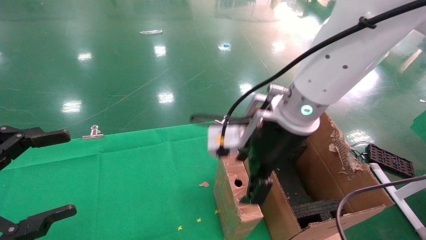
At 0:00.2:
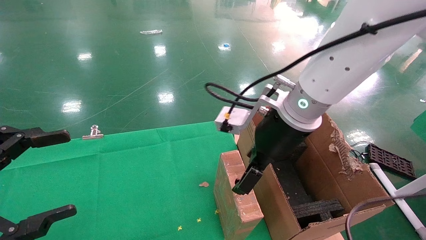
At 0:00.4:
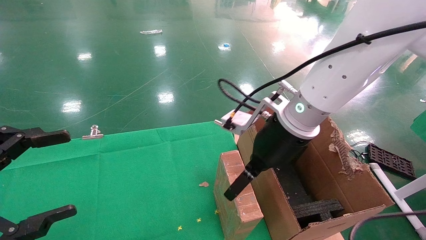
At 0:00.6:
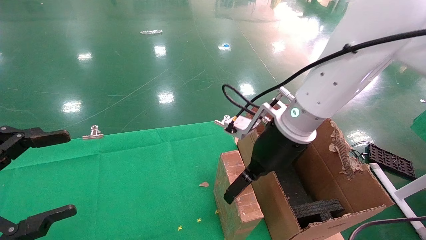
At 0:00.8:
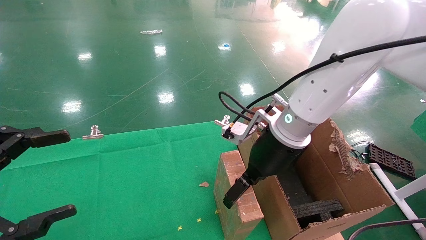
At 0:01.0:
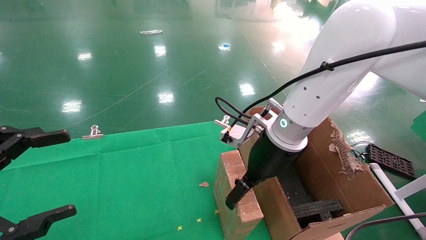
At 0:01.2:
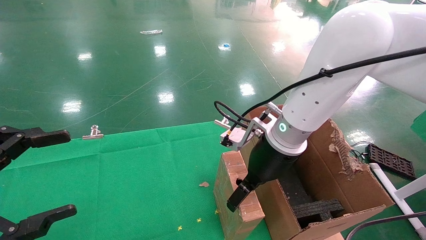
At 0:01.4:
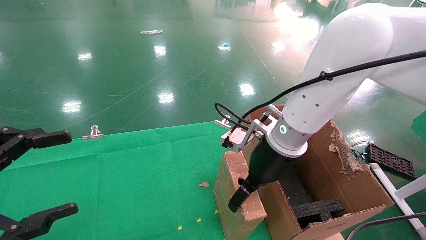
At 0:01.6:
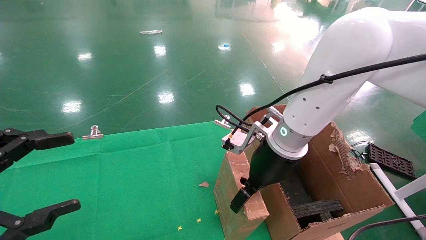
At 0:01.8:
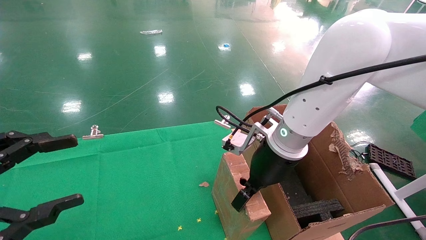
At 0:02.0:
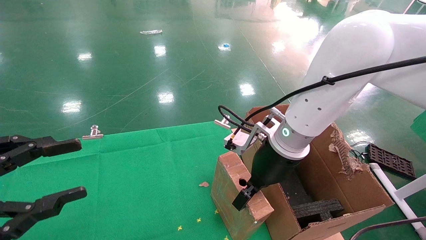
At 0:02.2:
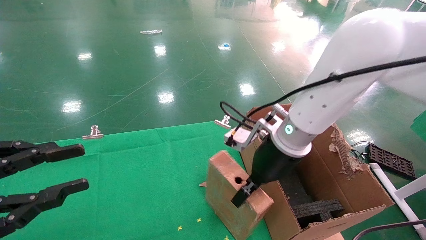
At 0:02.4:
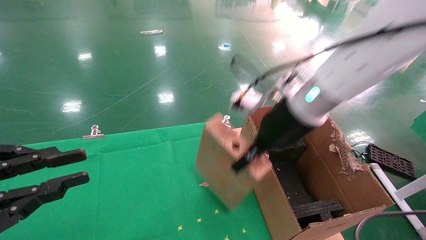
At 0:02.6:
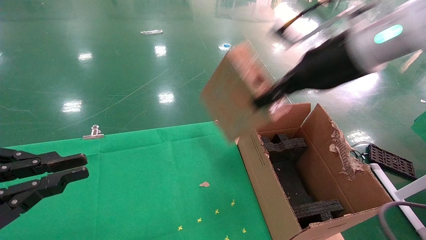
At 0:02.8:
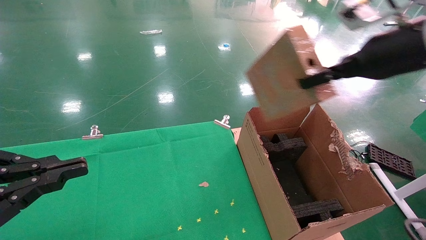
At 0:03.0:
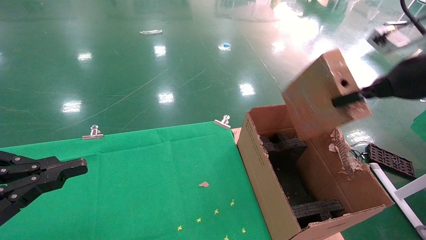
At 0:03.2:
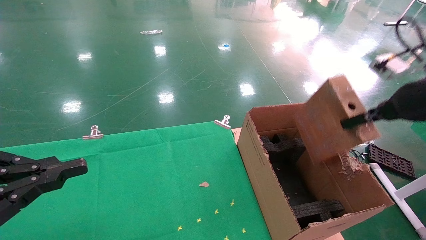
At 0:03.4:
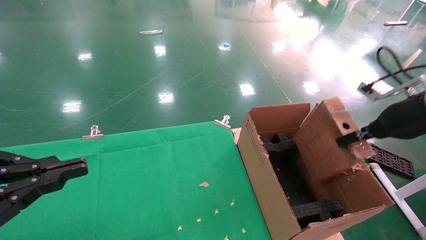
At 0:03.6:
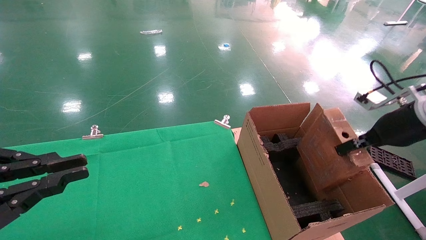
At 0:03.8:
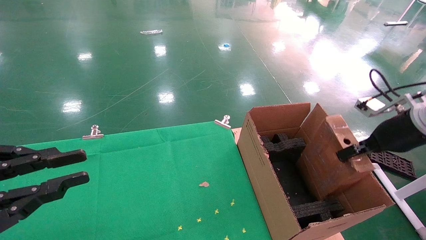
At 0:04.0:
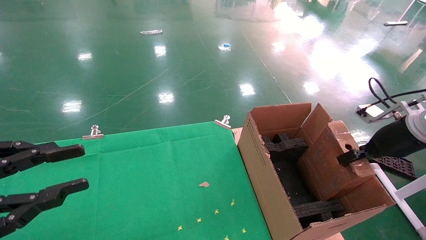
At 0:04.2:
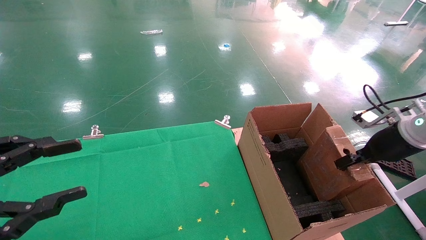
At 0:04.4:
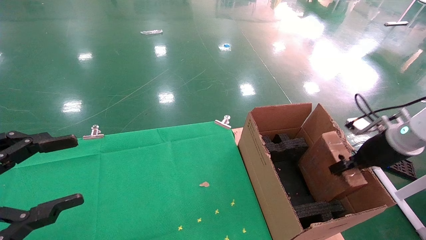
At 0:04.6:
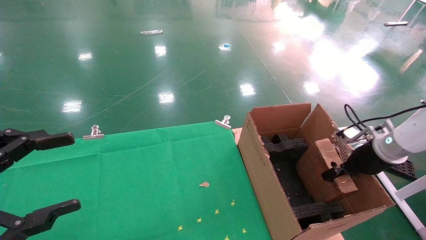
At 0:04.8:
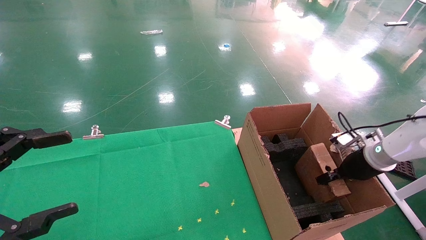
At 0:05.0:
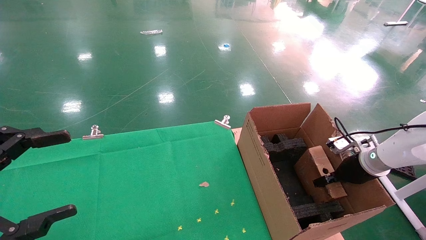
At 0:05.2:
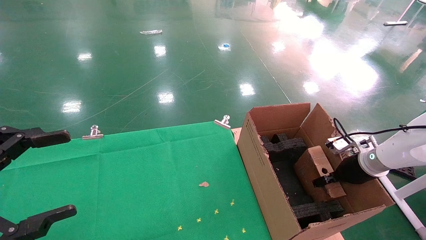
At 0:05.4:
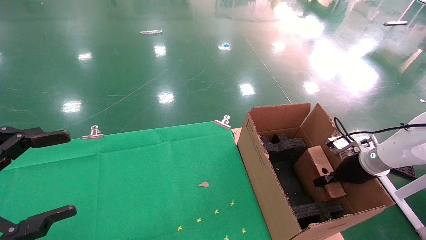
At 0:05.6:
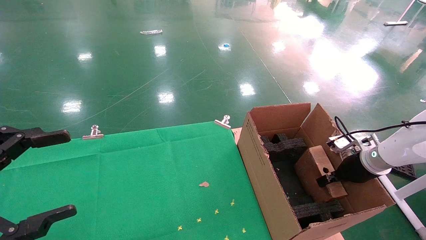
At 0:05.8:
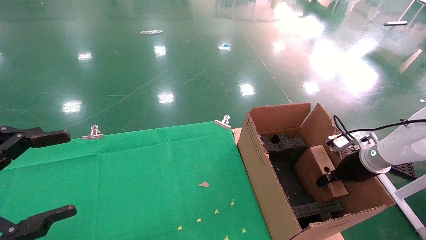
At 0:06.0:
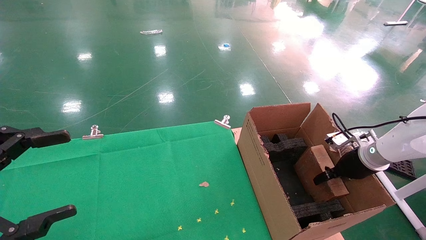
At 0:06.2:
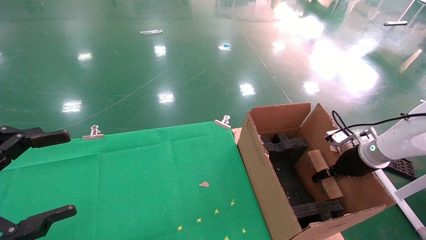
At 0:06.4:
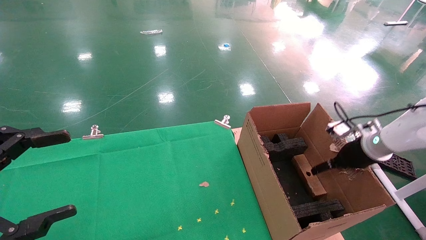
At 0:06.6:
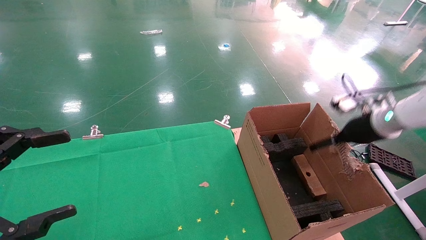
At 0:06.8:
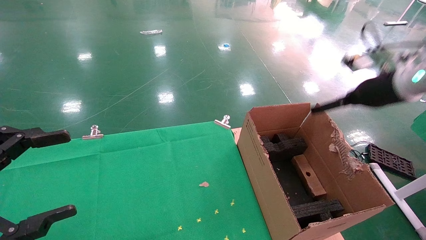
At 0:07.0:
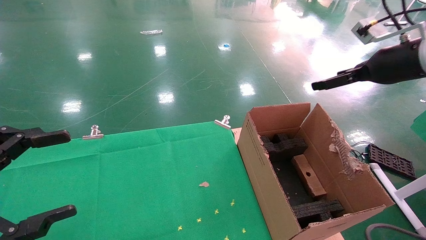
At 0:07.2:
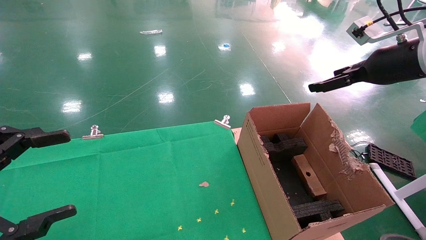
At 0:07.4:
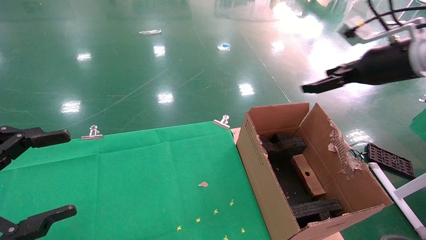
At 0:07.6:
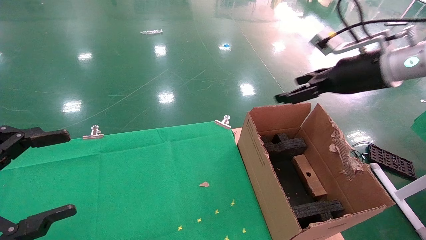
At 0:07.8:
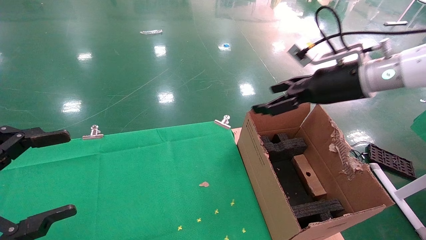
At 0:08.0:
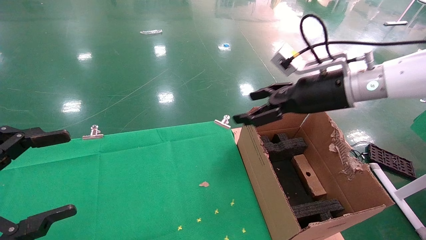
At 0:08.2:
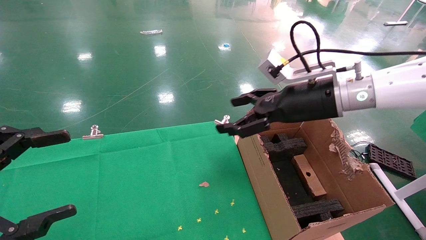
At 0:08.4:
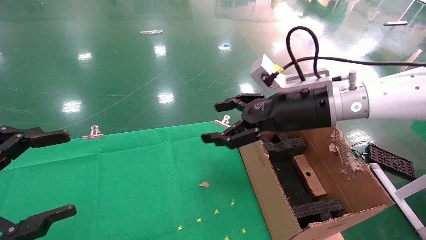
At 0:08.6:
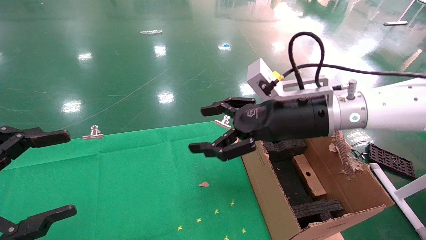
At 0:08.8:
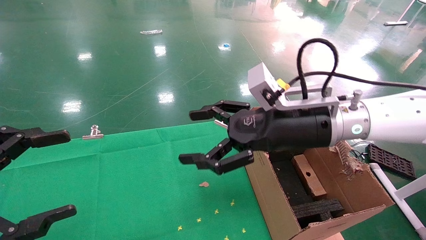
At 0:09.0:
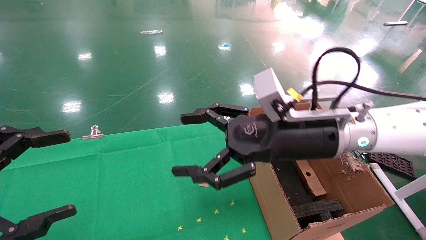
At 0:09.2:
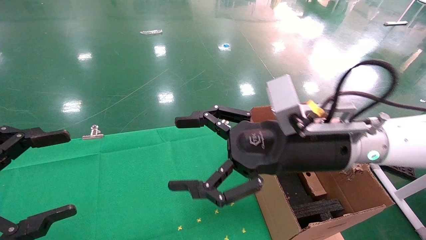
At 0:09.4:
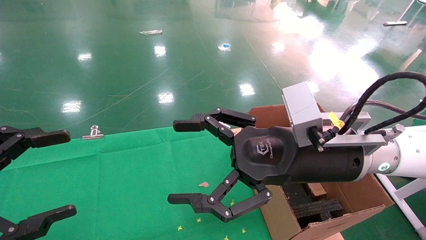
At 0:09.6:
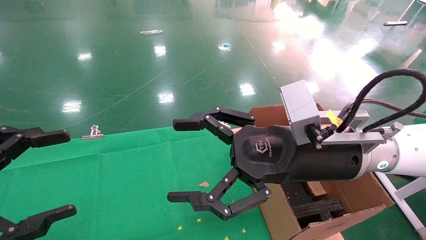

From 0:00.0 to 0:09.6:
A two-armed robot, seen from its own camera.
Task of the whole recording: using a robotic arm to pick up a cardboard box and palace it the carton.
Step, from 0:00.0 to 0:02.0: Pick up the mouse and the power cord paper box.
Step, from 0:02.2 to 0:06.4: Place the mouse and the power cord paper box into the container.
From 0:00.0 to 0:01.6: The right gripper heads downward, covering about 5 cm.
From 0:01.6 to 0:03.2: The right gripper travels to the right by some 25 cm, and closes up. The left gripper closes.
From 0:03.2 to 0:04.8: The left gripper opens its fingers; the right gripper travels downward and forward by about 20 cm.
From 0:04.8 to 0:06.4: The right gripper opens its fingers.
From 0:06.4 to 0:08.0: The right gripper travels to the left and upward by roughly 20 cm.
From 0:08.0 to 0:09.6: The right gripper is displaced backward, to the left and downward by roughly 15 cm.

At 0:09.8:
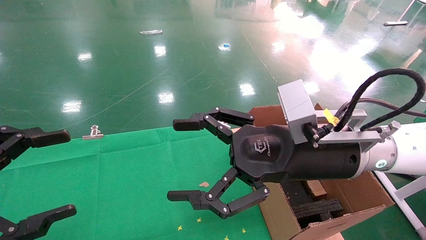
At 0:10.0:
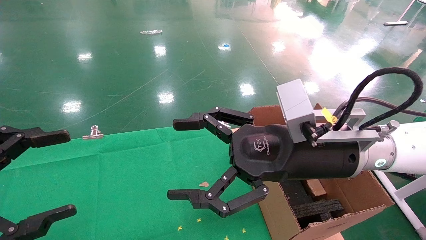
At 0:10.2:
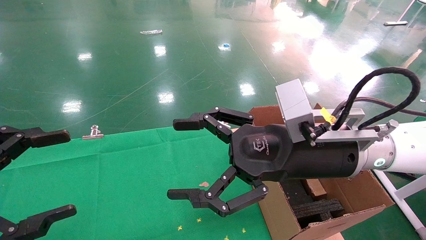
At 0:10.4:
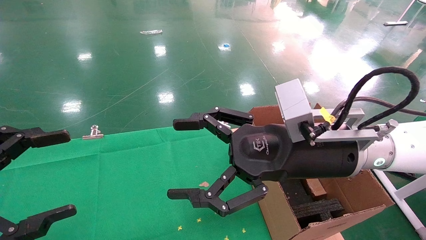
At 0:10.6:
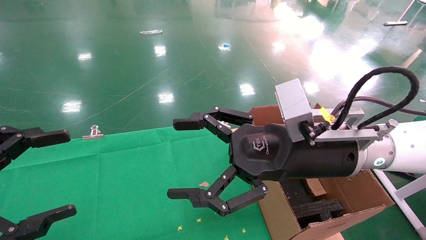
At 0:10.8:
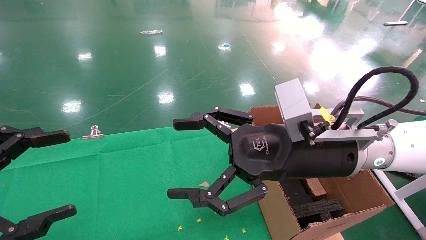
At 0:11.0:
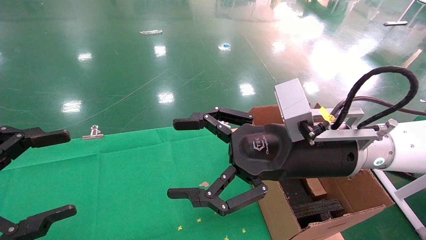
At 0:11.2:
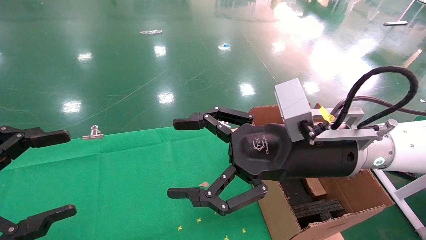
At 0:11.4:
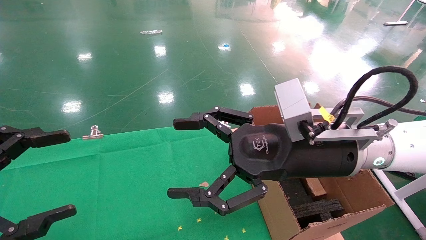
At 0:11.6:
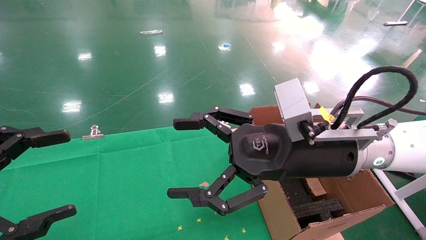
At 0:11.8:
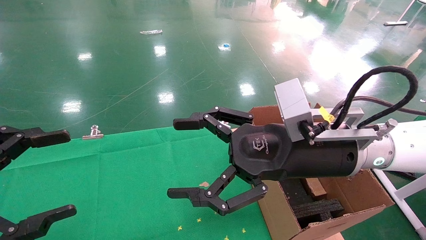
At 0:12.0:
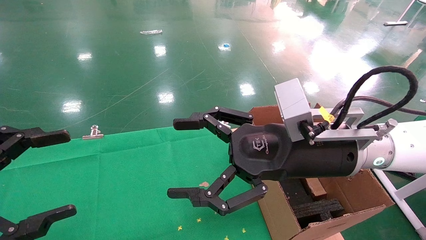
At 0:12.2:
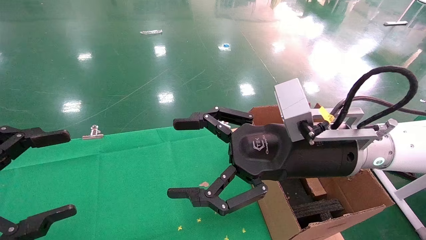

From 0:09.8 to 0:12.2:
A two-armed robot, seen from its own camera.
Task of the whole recording: using a robotic arm to pick up a cardboard box and palace it the carton.
From 0:09.8 to 0:12.2: Neither gripper changes place.
